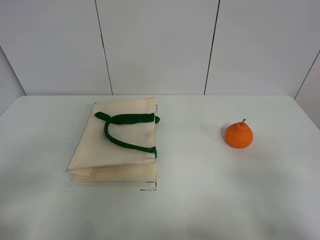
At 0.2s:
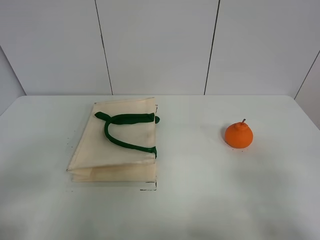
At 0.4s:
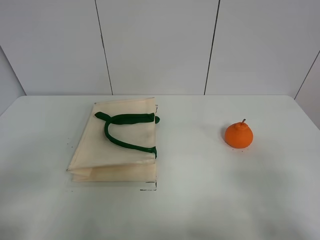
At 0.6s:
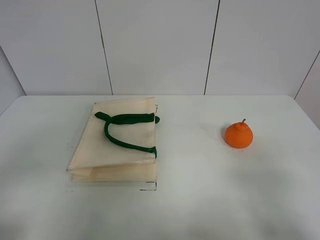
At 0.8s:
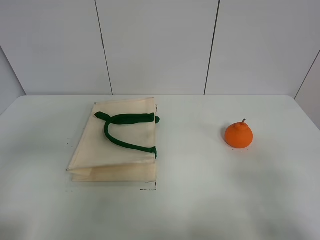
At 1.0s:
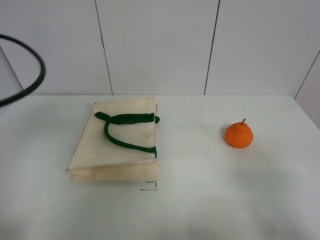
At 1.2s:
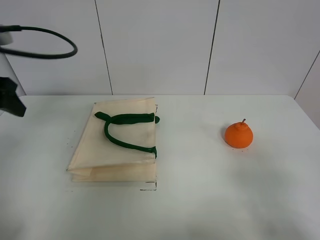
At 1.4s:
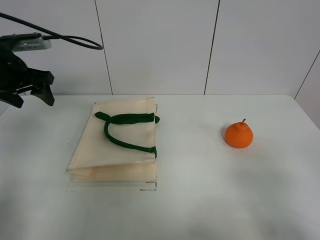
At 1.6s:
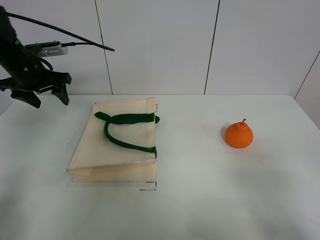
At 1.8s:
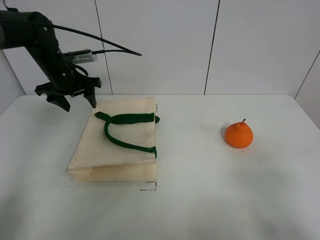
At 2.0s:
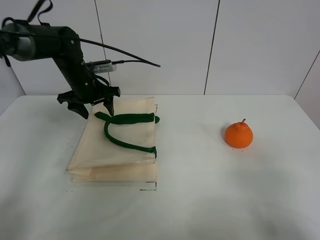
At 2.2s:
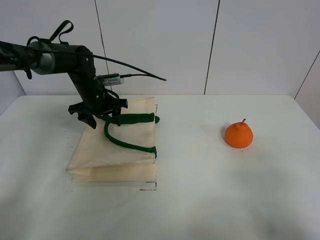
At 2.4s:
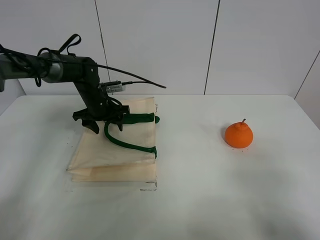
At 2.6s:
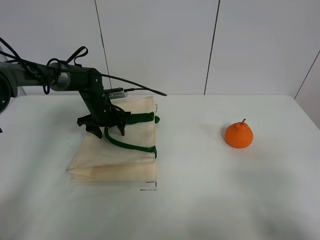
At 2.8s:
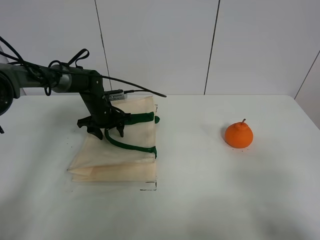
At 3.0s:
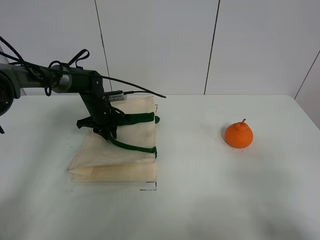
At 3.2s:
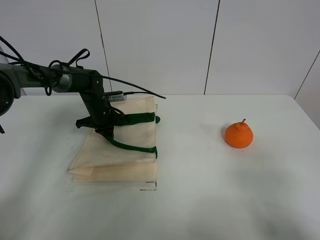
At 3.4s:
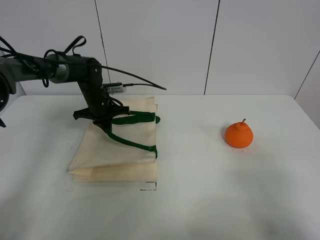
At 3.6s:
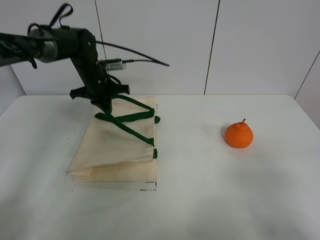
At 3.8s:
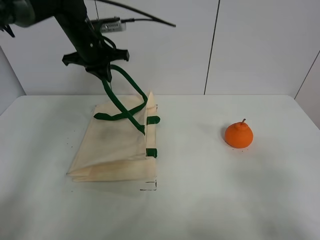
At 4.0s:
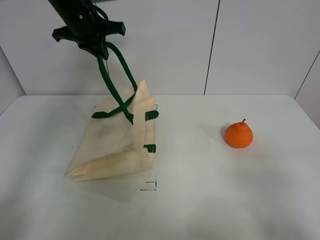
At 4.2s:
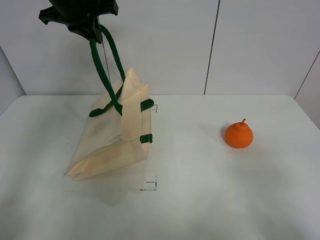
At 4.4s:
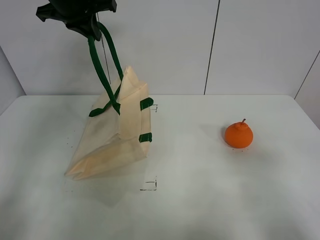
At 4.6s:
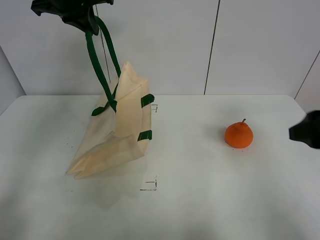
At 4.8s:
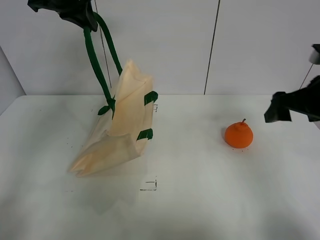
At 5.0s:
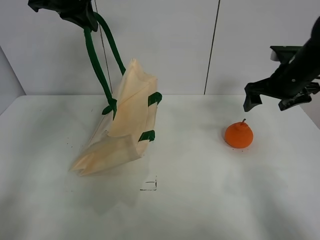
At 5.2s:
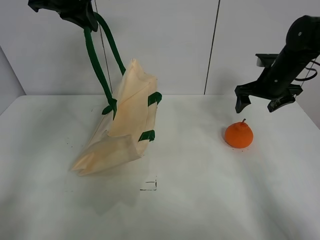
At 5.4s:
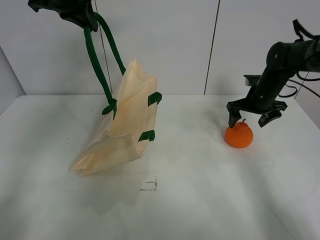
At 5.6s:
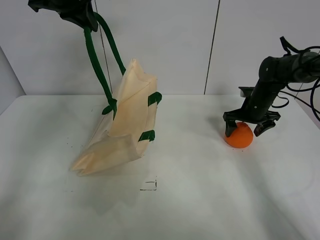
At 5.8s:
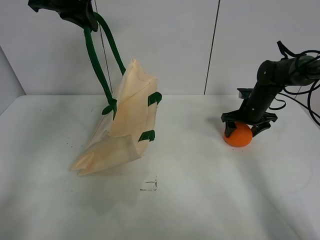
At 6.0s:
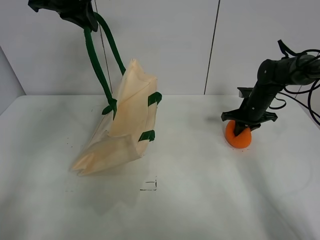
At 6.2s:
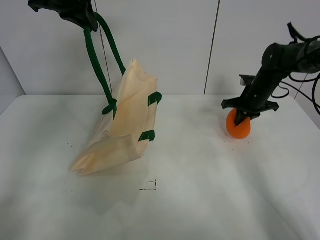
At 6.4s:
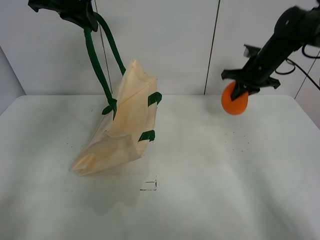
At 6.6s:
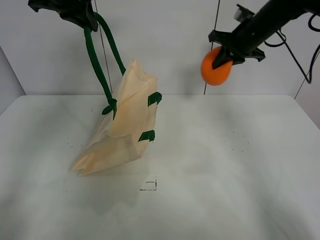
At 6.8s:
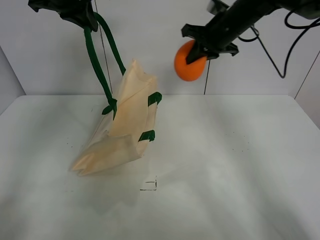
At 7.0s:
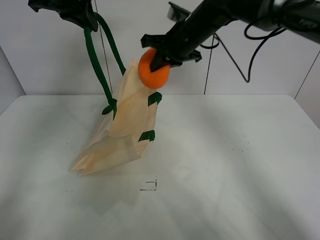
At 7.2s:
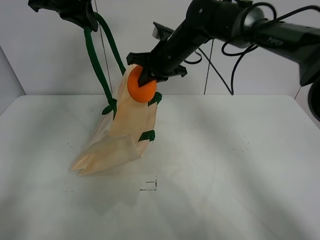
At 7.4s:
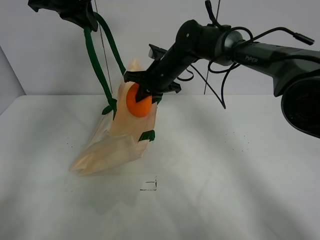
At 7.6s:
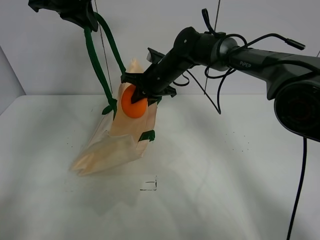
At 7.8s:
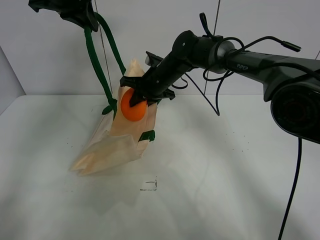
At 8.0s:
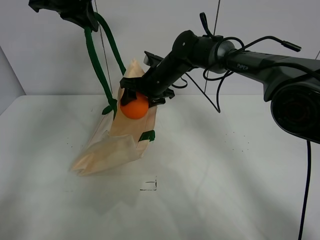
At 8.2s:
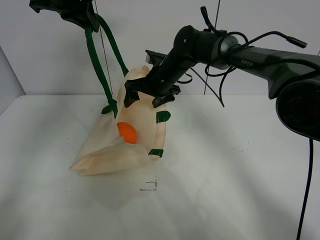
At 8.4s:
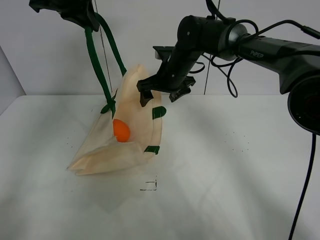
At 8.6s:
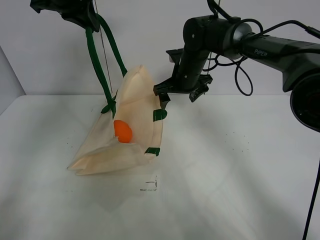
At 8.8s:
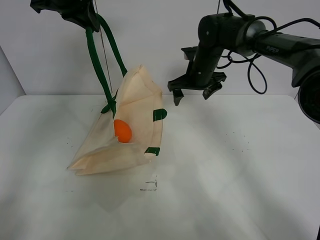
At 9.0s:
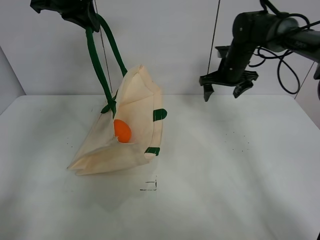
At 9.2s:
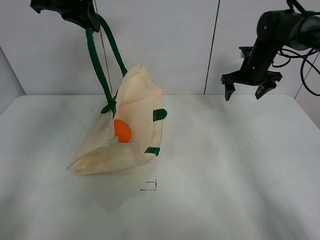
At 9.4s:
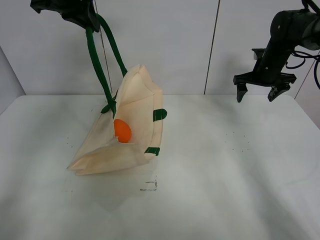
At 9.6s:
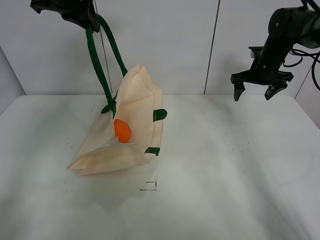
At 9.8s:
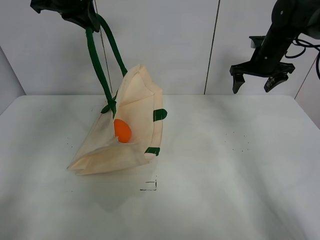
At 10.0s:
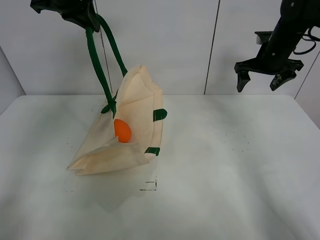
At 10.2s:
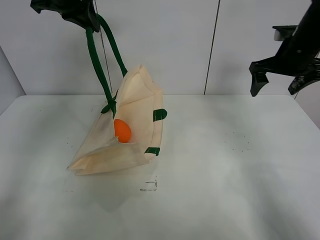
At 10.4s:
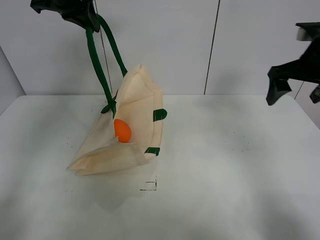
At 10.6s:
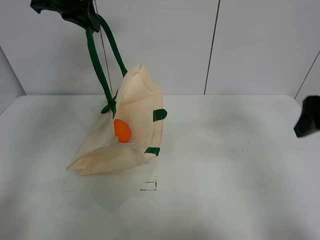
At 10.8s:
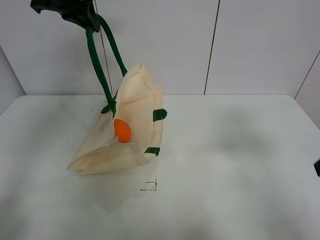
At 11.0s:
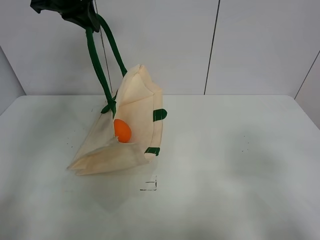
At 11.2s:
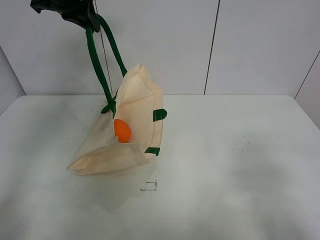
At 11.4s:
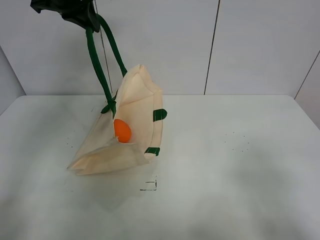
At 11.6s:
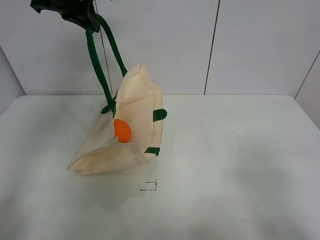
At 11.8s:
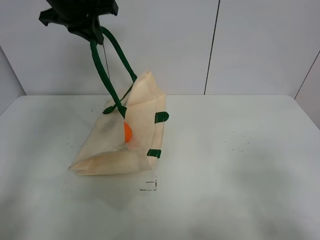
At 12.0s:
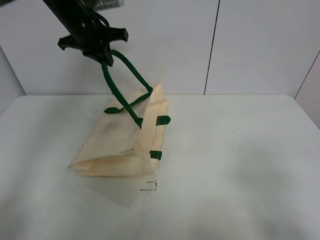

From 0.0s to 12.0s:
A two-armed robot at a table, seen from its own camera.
Task of the whole recording: open the white linen bag and put the orange in the bag.
Step, from 0.0s to 3.8s: Lift the handbag with left gripper.
Step, from 4.0s to 6.0s: Grasp the orange with right gripper.
Step, from 6.2s to 8.4s: Place the orange in the handbag with right gripper.
From 0.0s to 1.6s: The left gripper is displaced forward by about 40 cm.
From 1.6s to 3.0s: The left gripper shifts about 20 cm downward and to the right, and closes.
From 3.0s to 4.4s: The left gripper is displaced upward by roughly 30 cm. The right gripper moves forward, roughly 5 cm.
From 4.4s to 6.0s: The right gripper shifts some 40 cm forward and downward, and closes up.
From 6.0s to 7.6s: The right gripper heads to the left, covering roughly 25 cm.
From 7.6s to 9.0s: The right gripper heads to the right, covering about 20 cm, and opens its fingers.
From 9.0s to 10.4s: The right gripper heads backward and upward, covering roughly 20 cm.
From 10.4s to 12.0s: The right gripper moves backward, about 30 cm. Meanwhile the left gripper shifts about 10 cm downward.

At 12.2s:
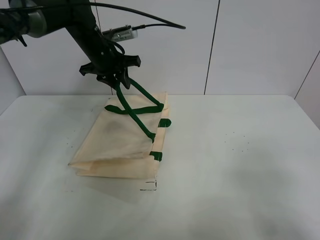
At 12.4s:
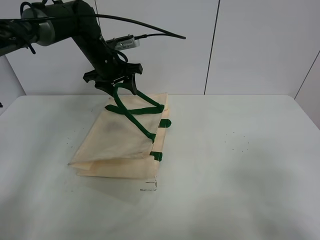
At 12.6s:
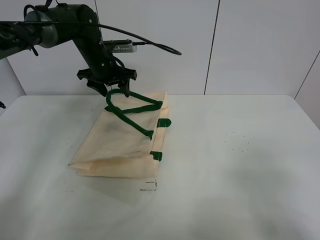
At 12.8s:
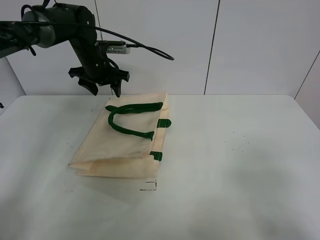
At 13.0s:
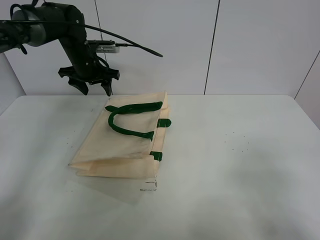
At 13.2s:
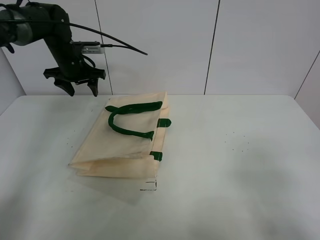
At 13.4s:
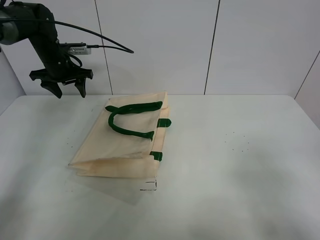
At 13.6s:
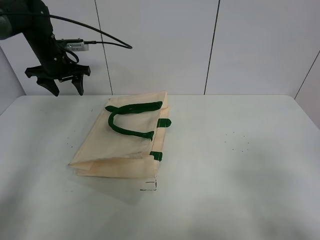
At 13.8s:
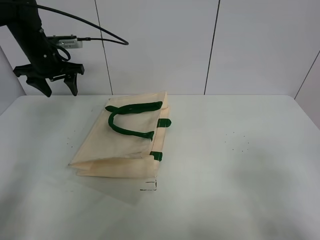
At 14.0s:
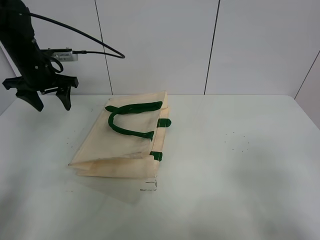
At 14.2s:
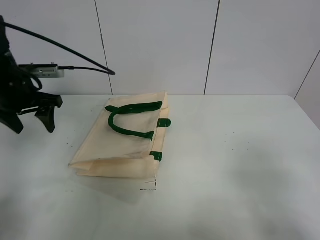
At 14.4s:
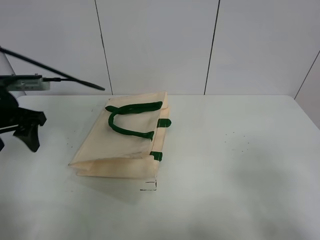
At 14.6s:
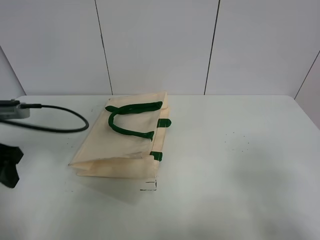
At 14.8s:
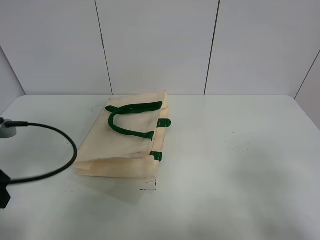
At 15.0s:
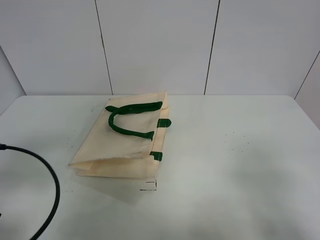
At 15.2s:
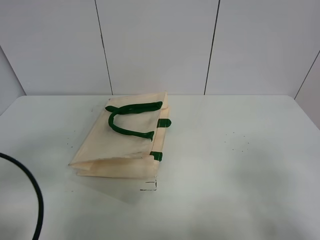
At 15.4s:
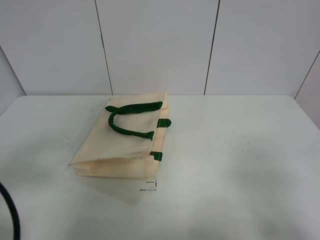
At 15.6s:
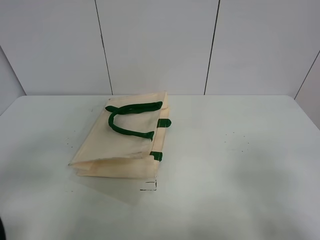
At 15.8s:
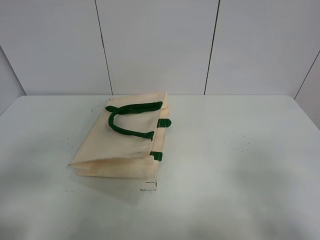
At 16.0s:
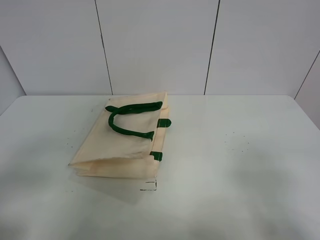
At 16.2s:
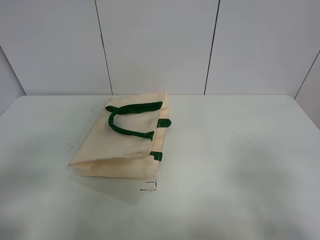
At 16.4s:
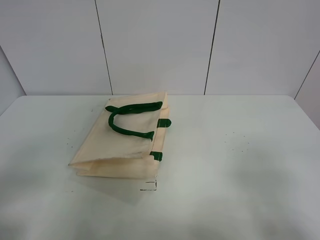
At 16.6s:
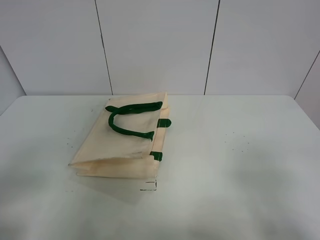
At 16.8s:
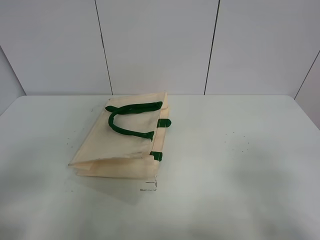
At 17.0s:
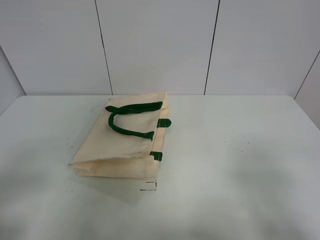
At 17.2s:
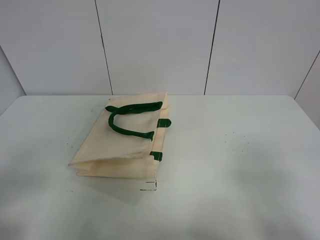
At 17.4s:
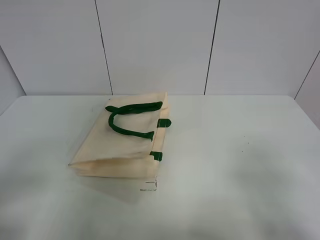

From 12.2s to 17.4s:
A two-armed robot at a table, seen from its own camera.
Task of the whole recording: open the white linen bag and put the orange in the bag.
From 12.2s to 14.0s: The left gripper shifts about 15 cm to the left and backward, and opens its fingers.
From 14.0s to 15.6s: The left gripper travels backward by about 35 cm.

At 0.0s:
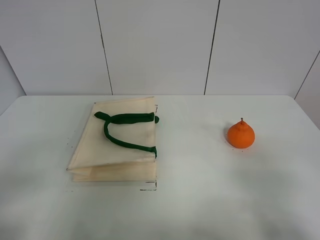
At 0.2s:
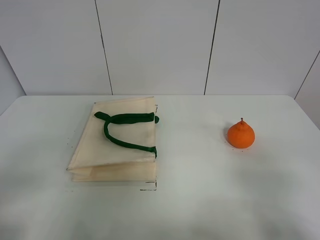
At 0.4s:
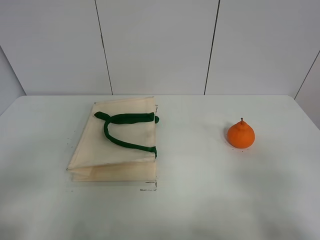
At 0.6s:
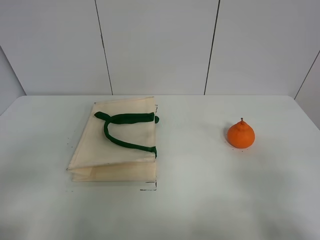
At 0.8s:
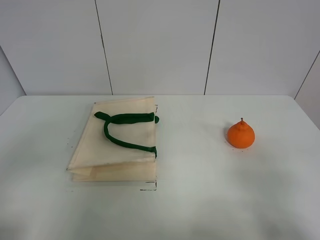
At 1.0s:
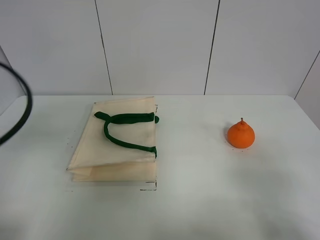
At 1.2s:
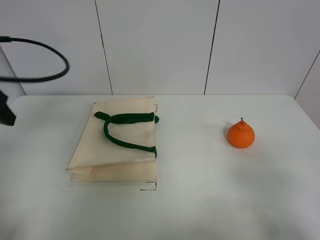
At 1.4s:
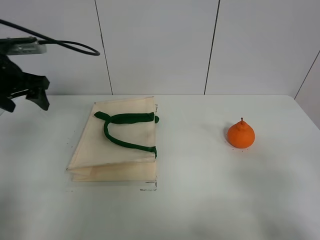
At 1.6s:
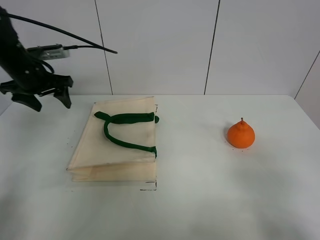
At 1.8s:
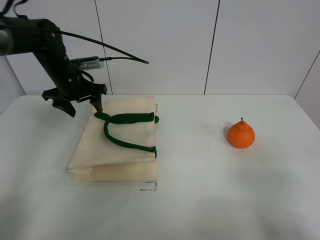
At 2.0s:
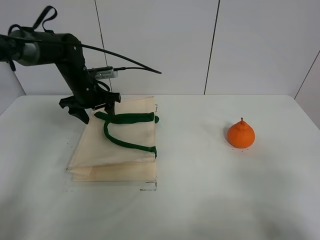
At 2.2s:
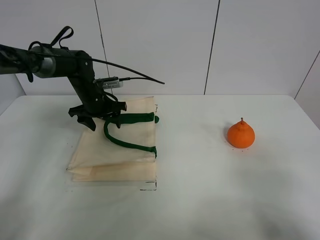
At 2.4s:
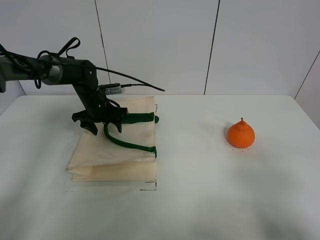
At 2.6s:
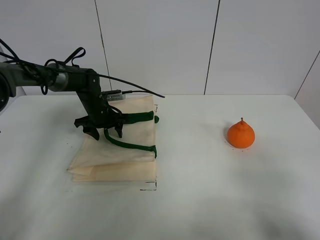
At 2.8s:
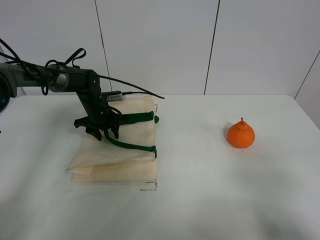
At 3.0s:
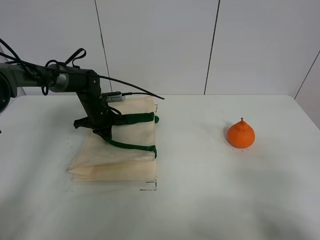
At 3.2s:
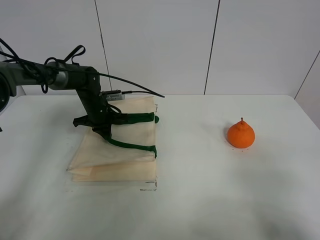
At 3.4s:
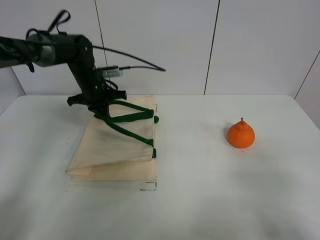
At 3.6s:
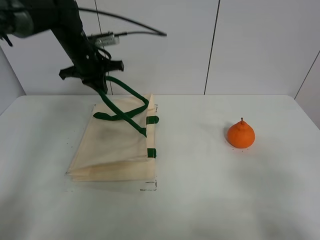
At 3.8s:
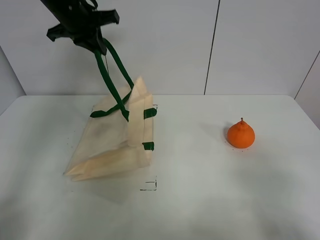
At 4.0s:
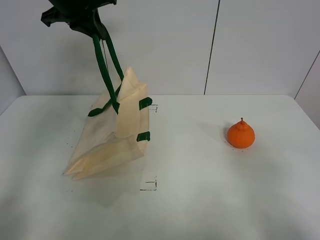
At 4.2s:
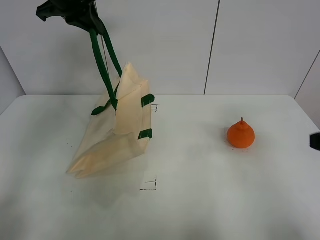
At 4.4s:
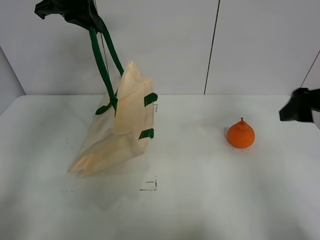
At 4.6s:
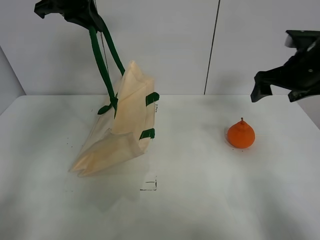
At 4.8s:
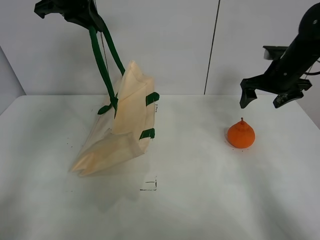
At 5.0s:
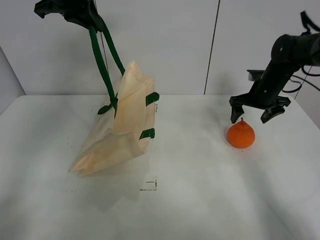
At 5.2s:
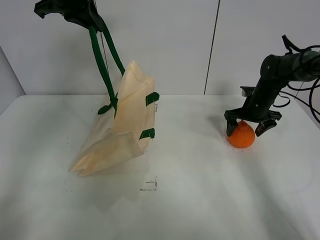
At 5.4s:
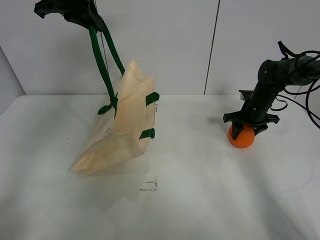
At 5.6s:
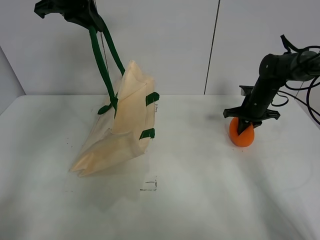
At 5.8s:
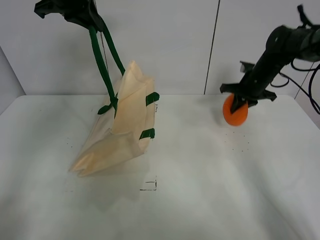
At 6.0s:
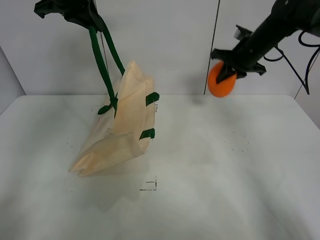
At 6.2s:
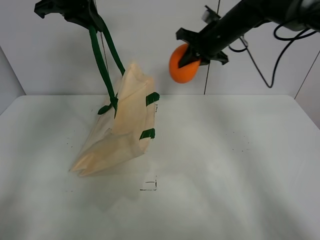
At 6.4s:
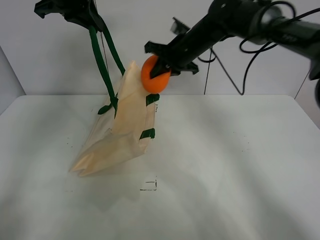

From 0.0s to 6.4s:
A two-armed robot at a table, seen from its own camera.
Task of the whole recording: open the white linen bag and put the orange in the bag.
Step, from 0.0s to 4.0s: Lift the handbag with left gripper.
Step, from 4.2s to 5.4s: Grasp the orange with right gripper.
From 0.0s to 1.6s: The left gripper shifts roughly 40 cm forward.
From 1.6s to 3.2s: The left gripper goes some 15 cm downward, to the right and forward, and closes.
From 3.2s to 4.8s: The left gripper is displaced upward by about 30 cm. The right gripper heads forward, covering about 40 cm.
From 4.8s to 6.4s: The right gripper moves to the left, roughly 20 cm, and closes its fingers.
